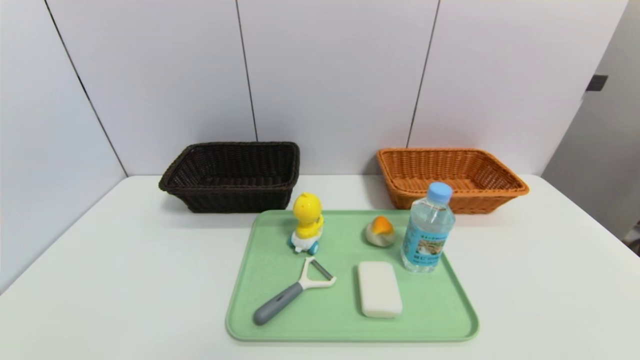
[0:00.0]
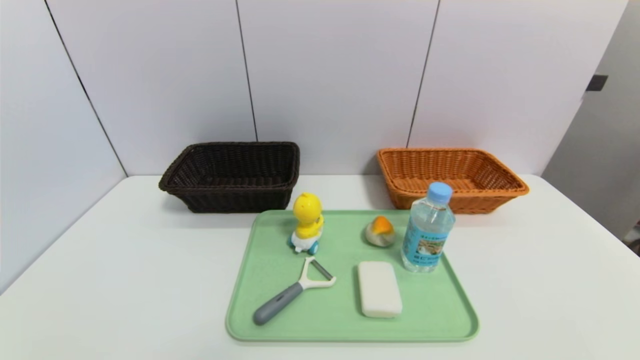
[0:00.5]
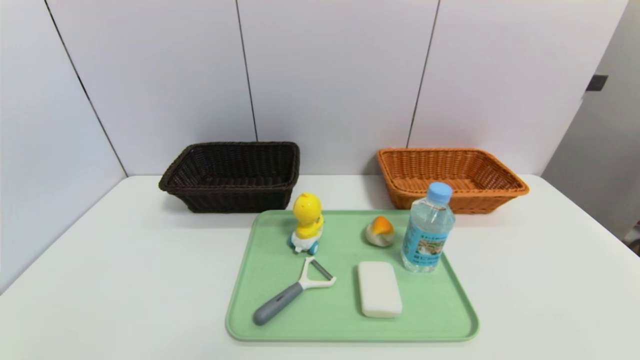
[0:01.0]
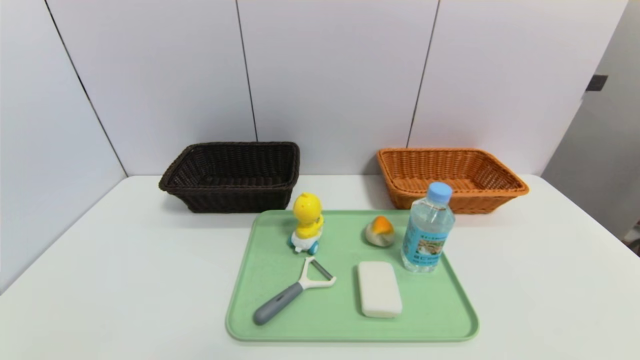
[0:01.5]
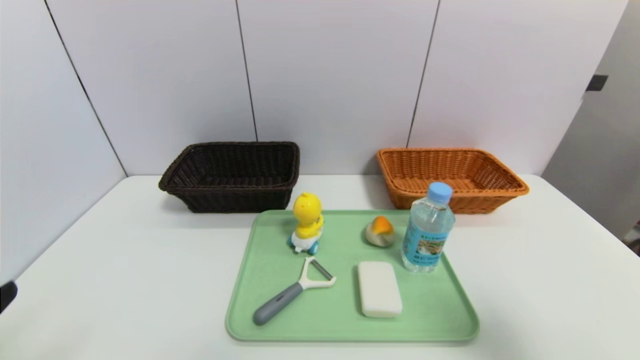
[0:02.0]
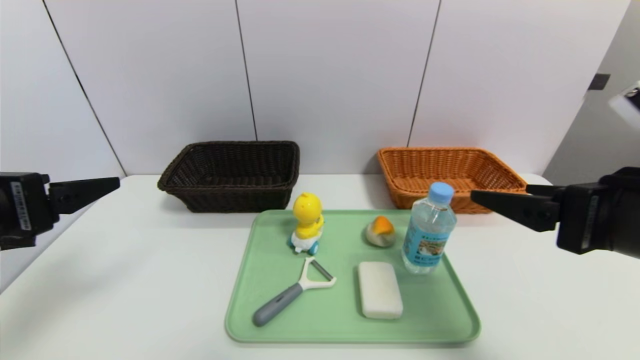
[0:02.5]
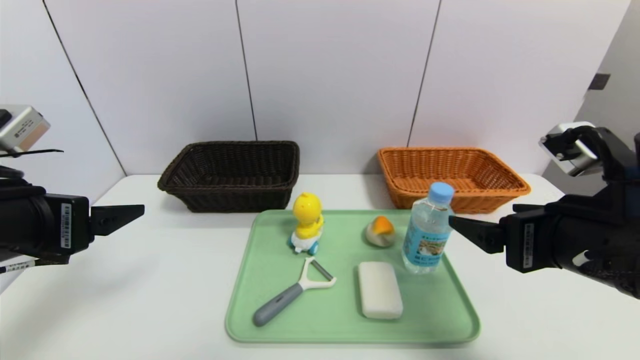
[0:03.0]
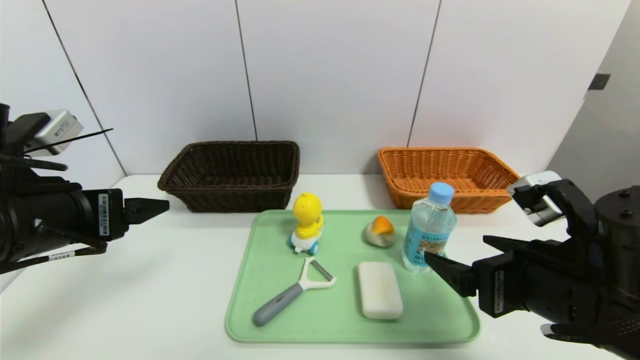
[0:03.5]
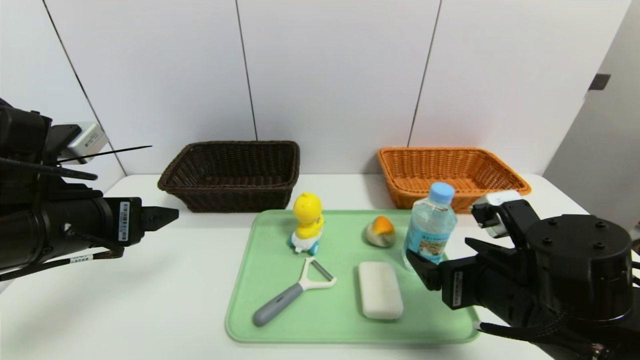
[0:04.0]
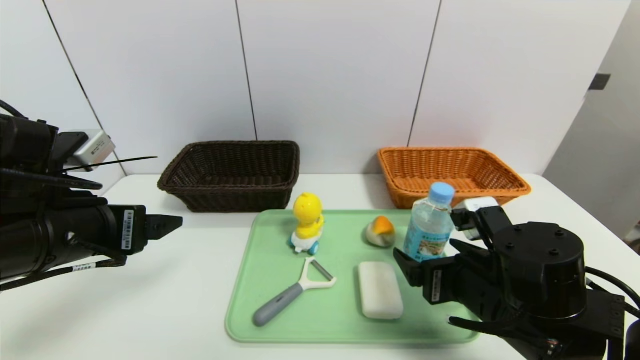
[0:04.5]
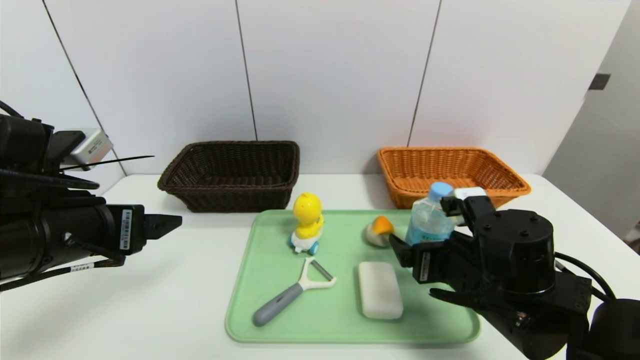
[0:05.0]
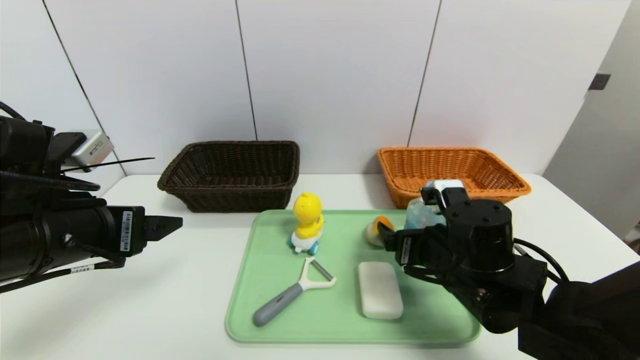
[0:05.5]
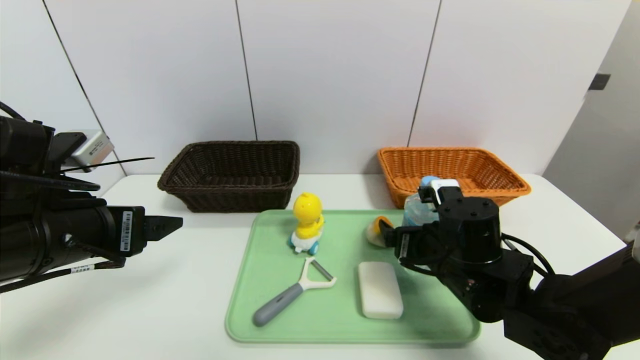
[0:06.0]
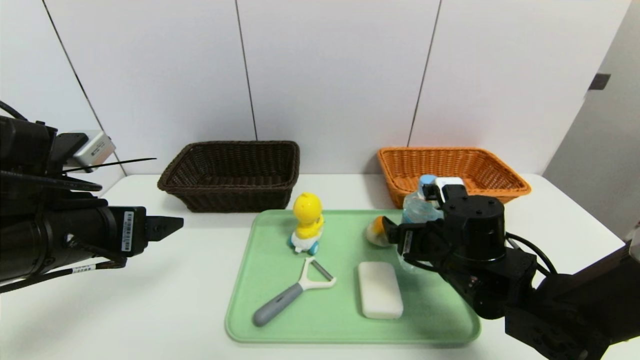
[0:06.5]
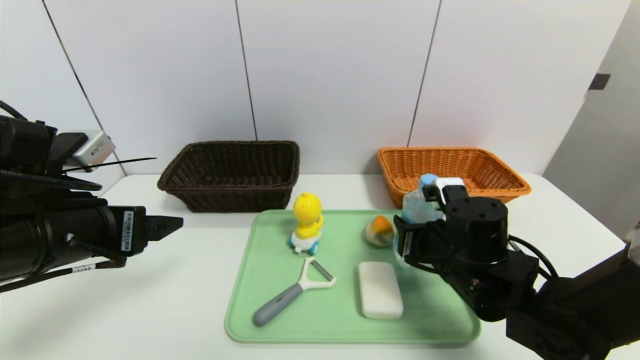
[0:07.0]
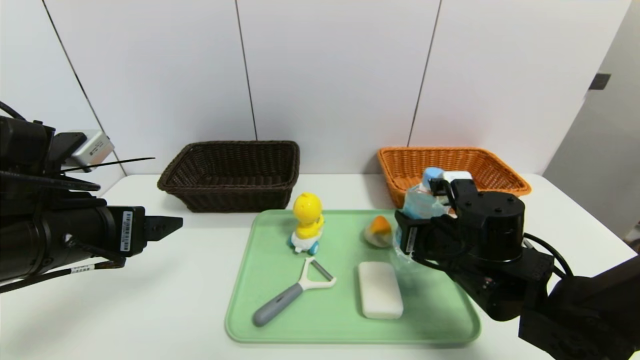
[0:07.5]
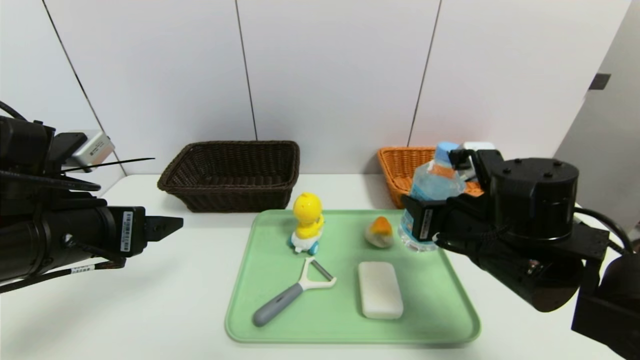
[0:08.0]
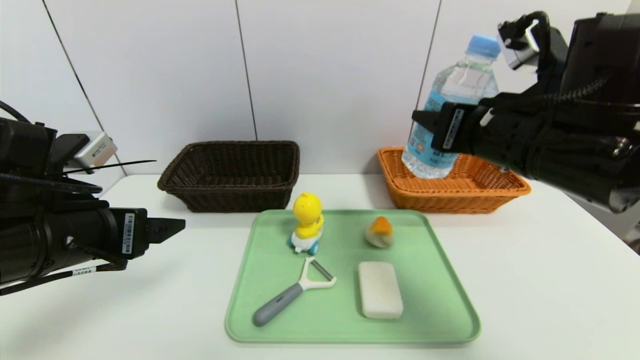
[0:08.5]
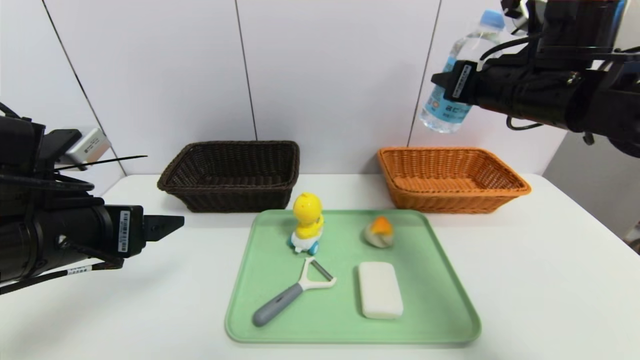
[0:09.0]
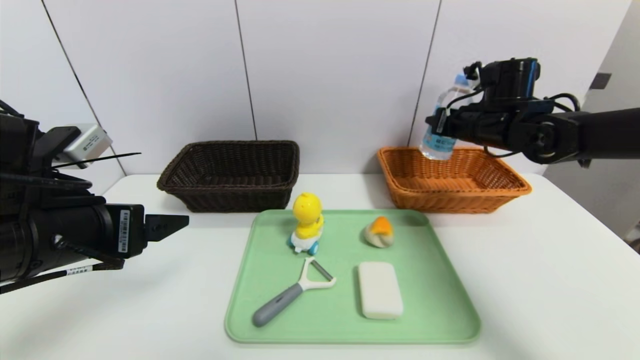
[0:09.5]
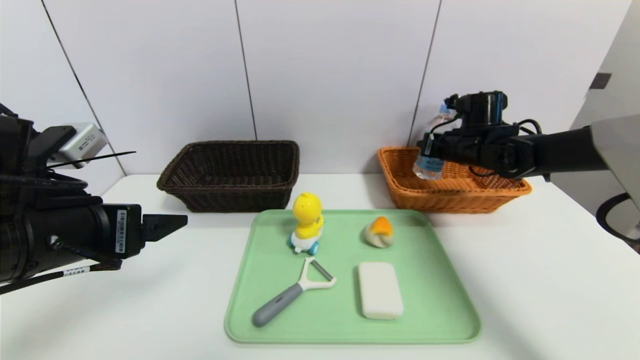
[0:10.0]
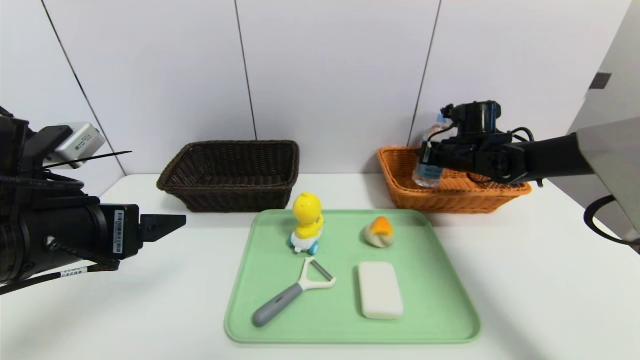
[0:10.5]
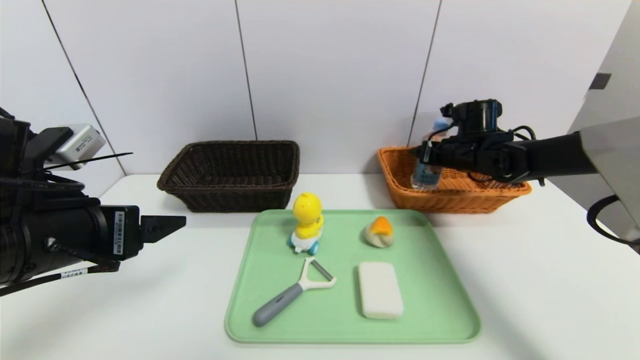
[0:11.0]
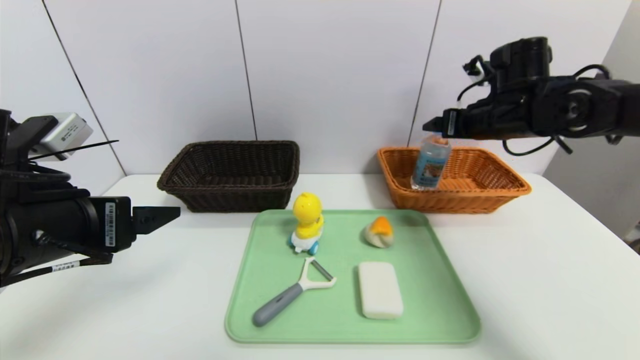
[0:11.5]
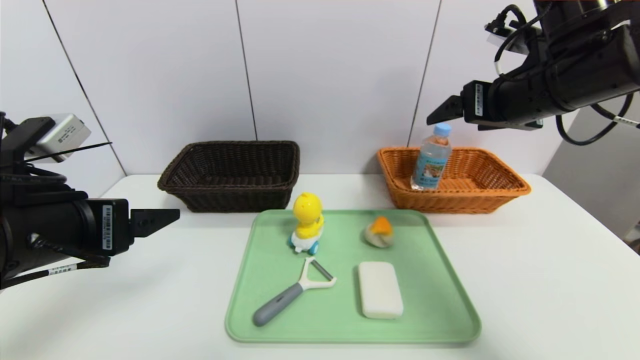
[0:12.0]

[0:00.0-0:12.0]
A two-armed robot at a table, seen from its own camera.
Task of the whole recording: place the food in the right basket with the right gripper, and place the non food items in the left basket with the left gripper.
Step, 0:00.0 to 0:11.0: Grasp the soda water and put it in the right basket.
0:00.0 to 0:02.0: The right gripper goes about 20 cm upward and forward.
0:02.0 to 0:04.0: The left gripper moves forward, some 15 cm. Meanwhile the right gripper is displaced to the left, downward and forward by roughly 20 cm.
0:04.0 to 0:06.0: The right gripper shifts roughly 10 cm forward.
0:06.0 to 0:08.0: The right gripper is displaced upward by roughly 10 cm, and closes.
0:08.0 to 0:10.0: The right gripper moves forward, some 25 cm.
0:10.0 to 0:12.0: The right gripper travels backward and upward by approximately 20 cm, and opens its fingers.

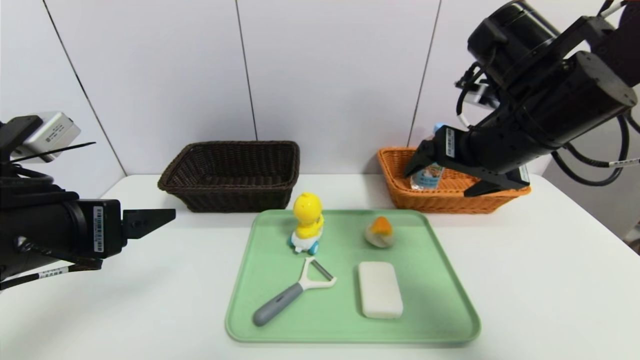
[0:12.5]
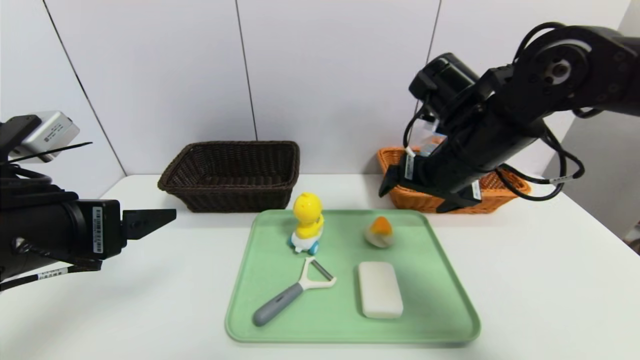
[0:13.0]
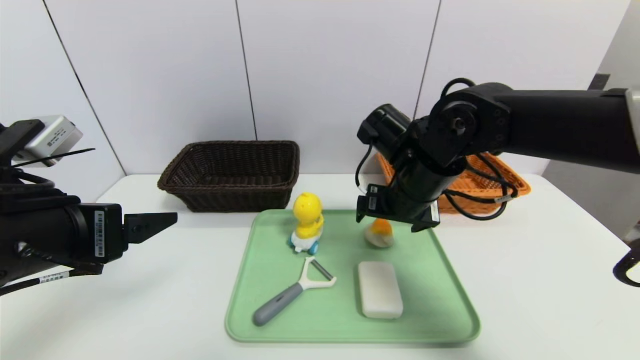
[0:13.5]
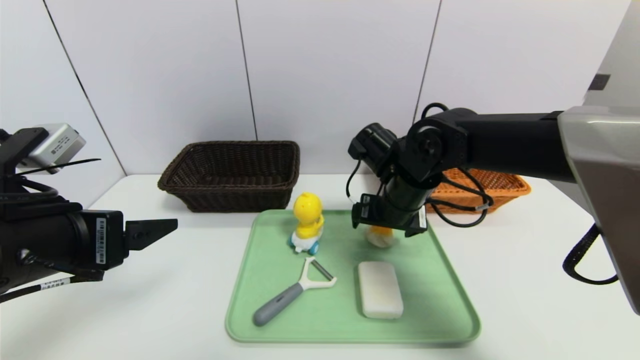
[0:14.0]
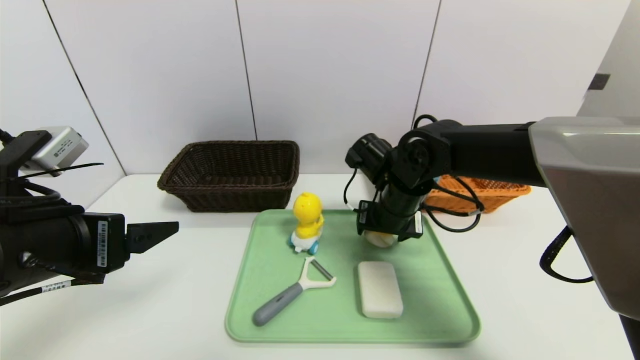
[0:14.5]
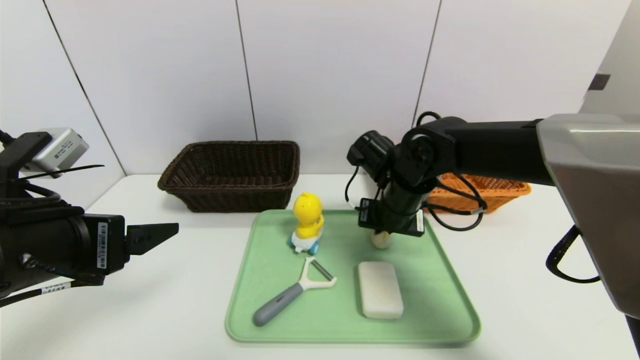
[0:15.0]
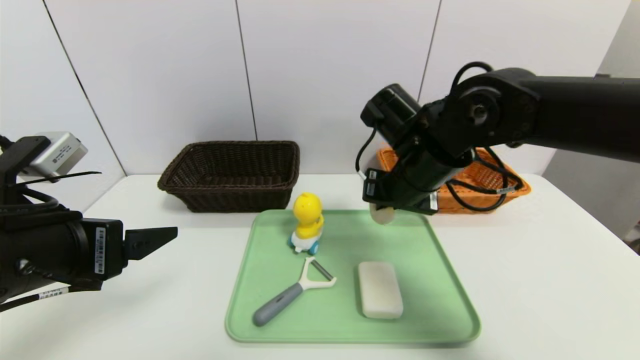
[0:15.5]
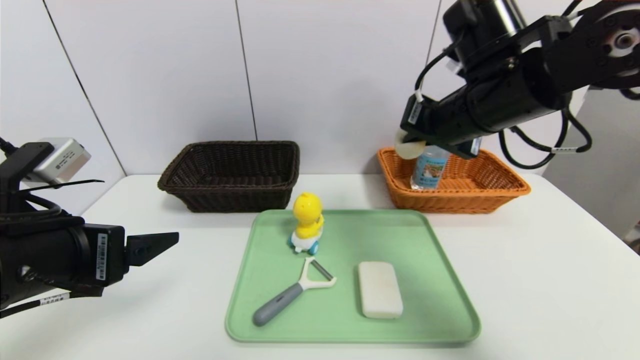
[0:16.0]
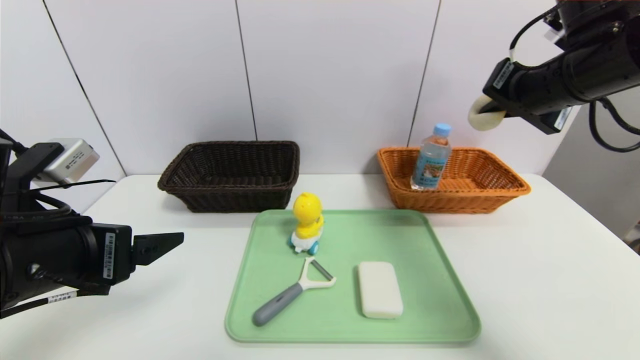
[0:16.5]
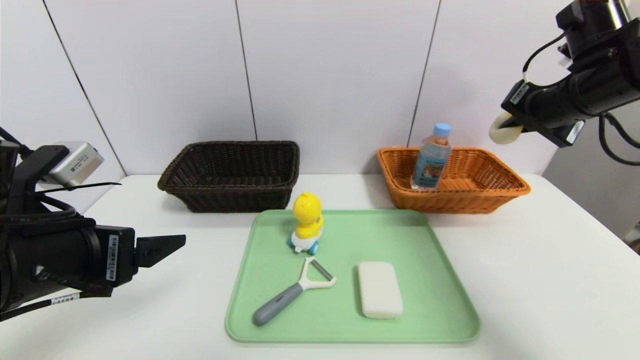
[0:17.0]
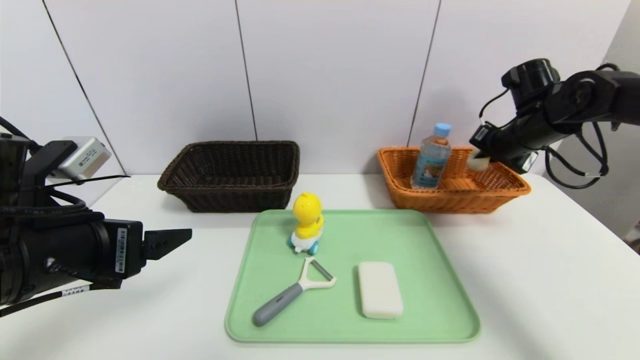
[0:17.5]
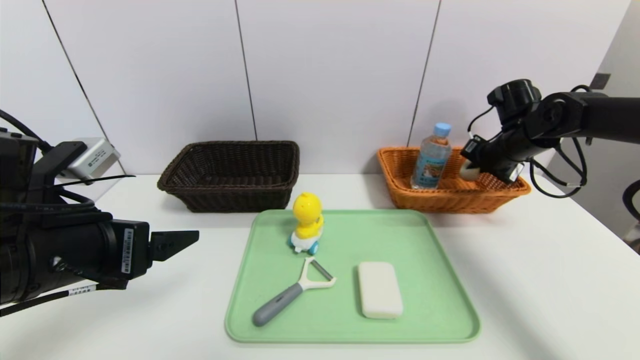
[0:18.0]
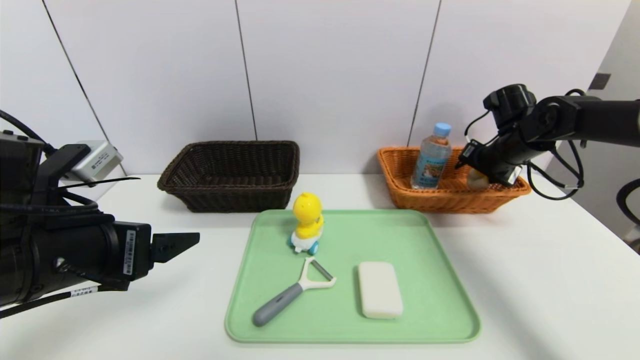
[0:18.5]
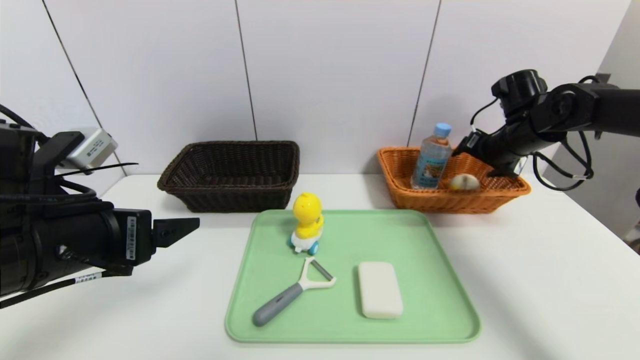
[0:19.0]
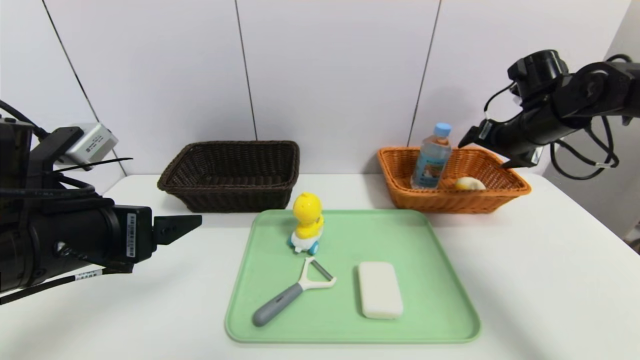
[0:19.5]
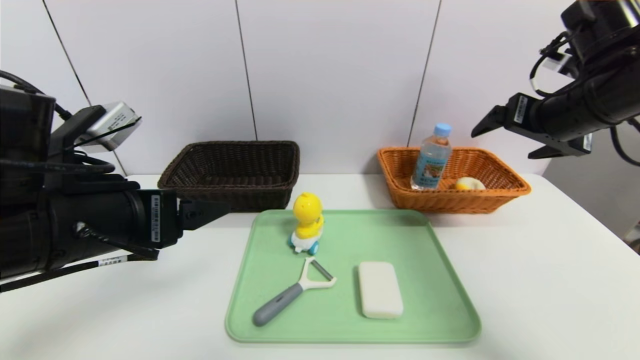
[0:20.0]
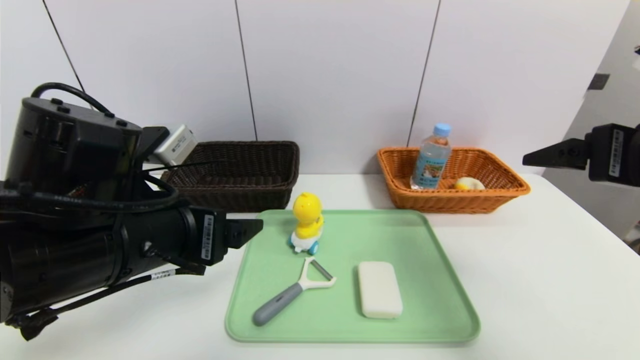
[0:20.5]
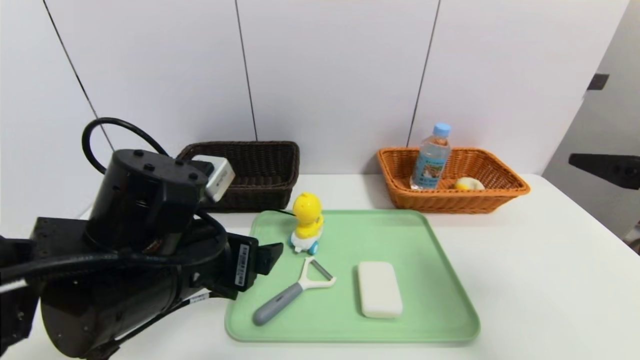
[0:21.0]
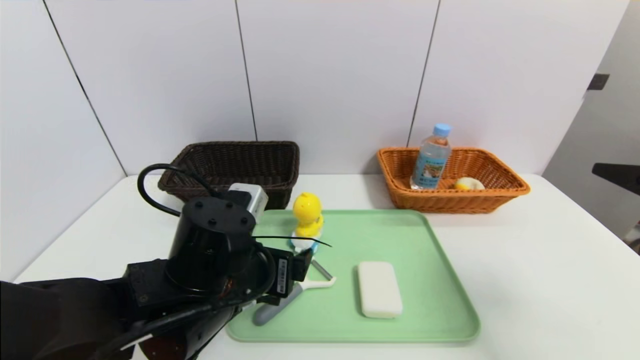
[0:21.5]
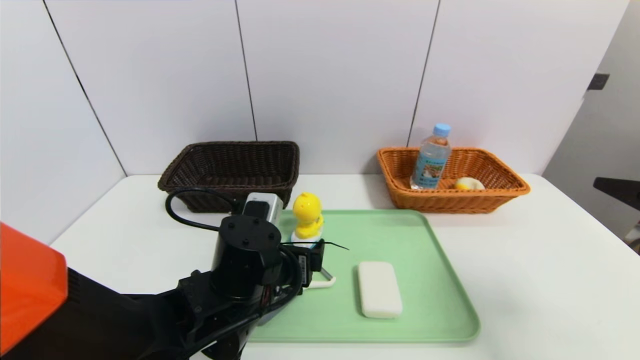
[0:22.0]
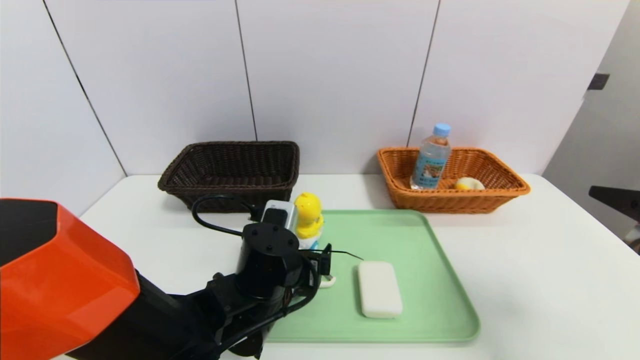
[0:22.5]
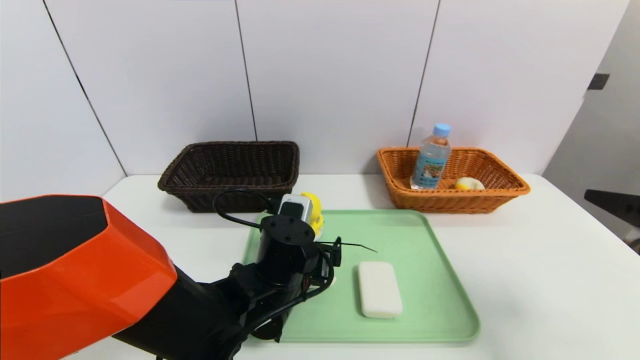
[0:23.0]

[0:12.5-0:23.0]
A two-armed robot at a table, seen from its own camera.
Task of the whole recording: place the food in the right basket with the right gripper, and place the non food items in the left basket with the left gripper.
Step, 0:12.5 to 0:19.0: Grasp the yellow duck and put it in the right basket.
0:12.5 to 0:14.5: The right gripper moves downward, to the left and forward, about 20 cm.
0:14.5 to 0:16.5: The right gripper shifts some 25 cm upward and to the right, and closes.
0:16.5 to 0:19.0: The right gripper travels downward, forward and to the right by roughly 20 cm, and opens up.
0:19.0 to 0:21.0: The left gripper is displaced to the right by approximately 10 cm; the right gripper travels backward by some 30 cm.
0:21.0 to 0:23.0: The left gripper heads downward, to the right and forward, covering roughly 15 cm.
